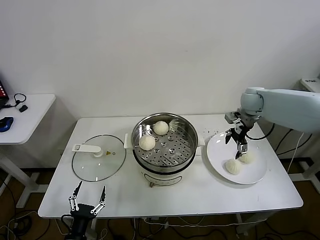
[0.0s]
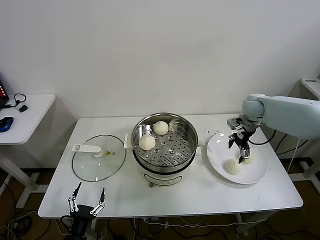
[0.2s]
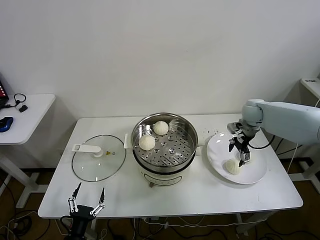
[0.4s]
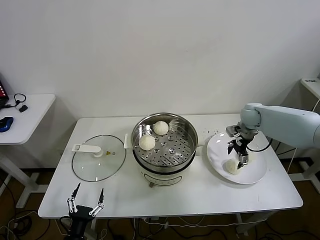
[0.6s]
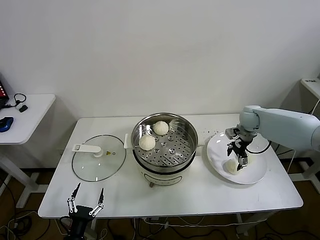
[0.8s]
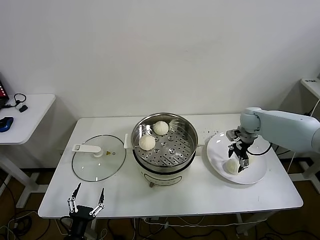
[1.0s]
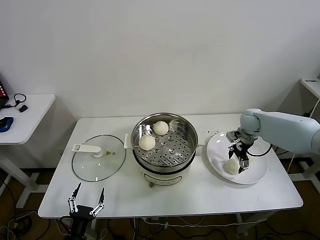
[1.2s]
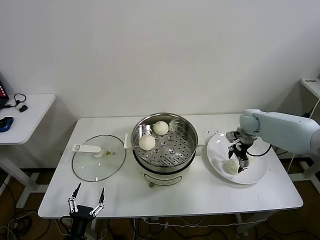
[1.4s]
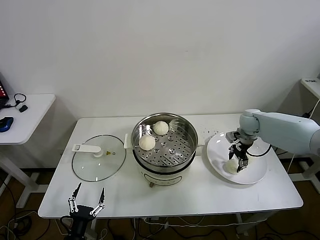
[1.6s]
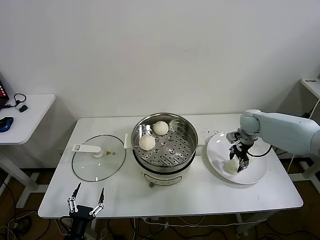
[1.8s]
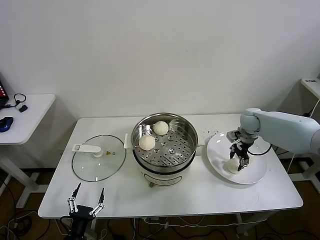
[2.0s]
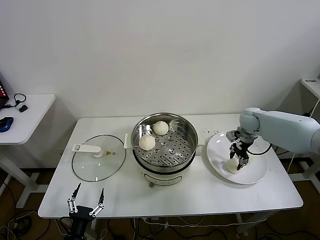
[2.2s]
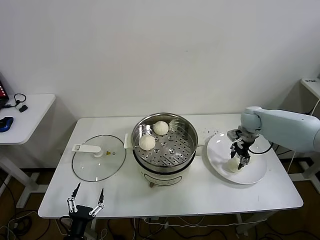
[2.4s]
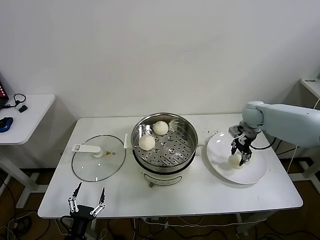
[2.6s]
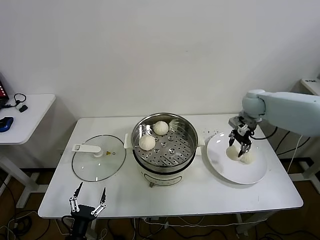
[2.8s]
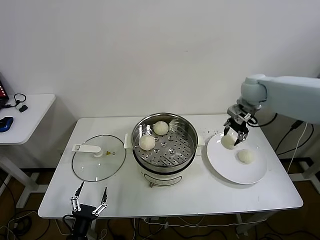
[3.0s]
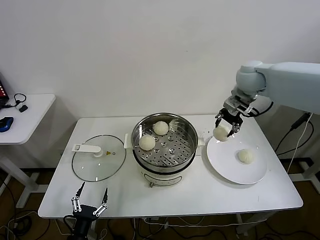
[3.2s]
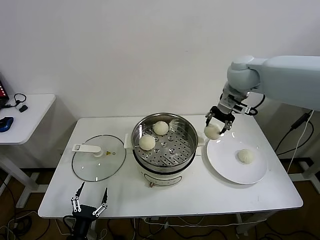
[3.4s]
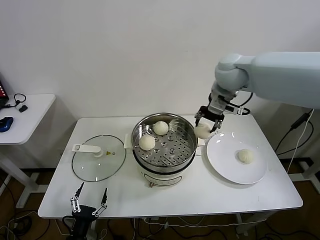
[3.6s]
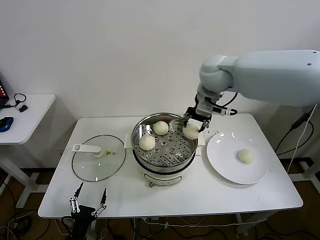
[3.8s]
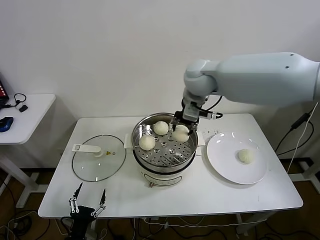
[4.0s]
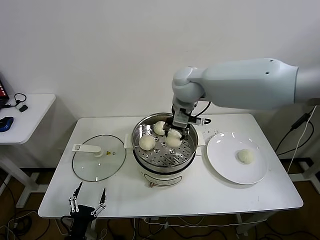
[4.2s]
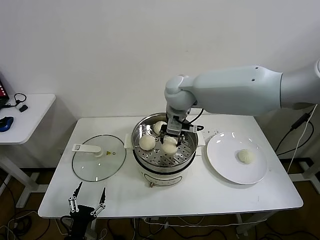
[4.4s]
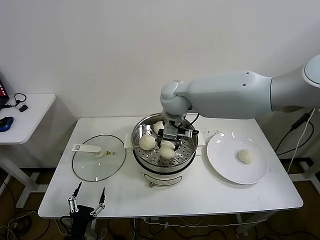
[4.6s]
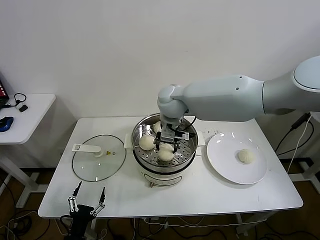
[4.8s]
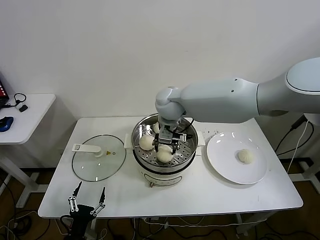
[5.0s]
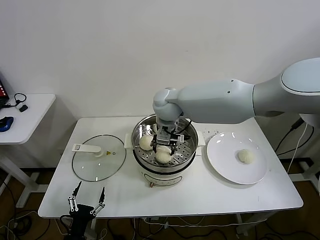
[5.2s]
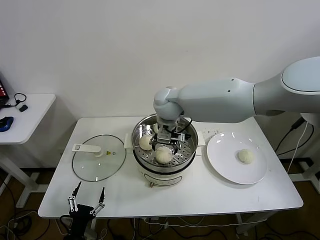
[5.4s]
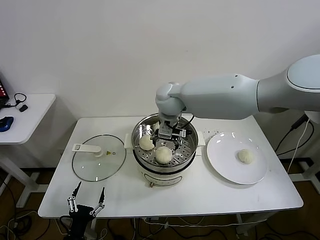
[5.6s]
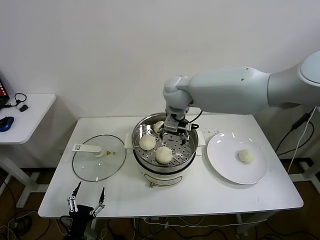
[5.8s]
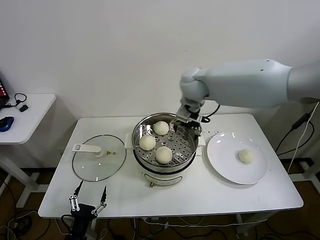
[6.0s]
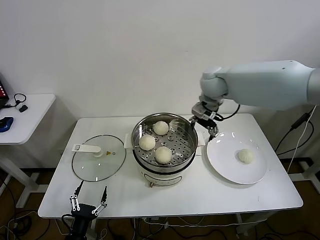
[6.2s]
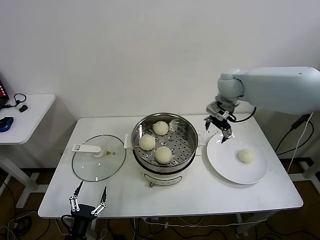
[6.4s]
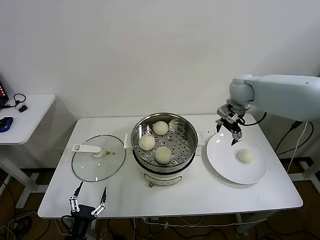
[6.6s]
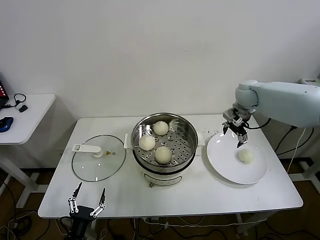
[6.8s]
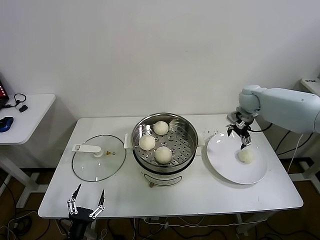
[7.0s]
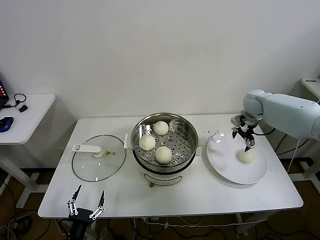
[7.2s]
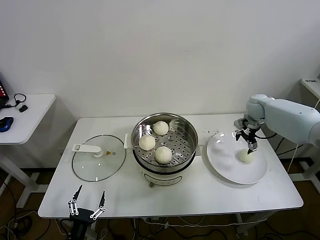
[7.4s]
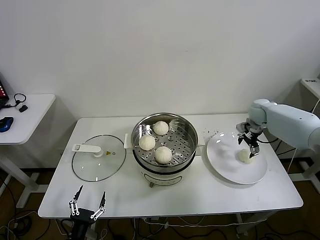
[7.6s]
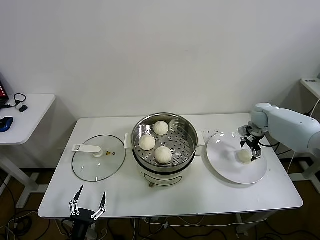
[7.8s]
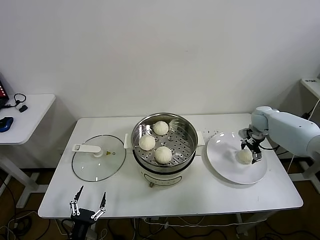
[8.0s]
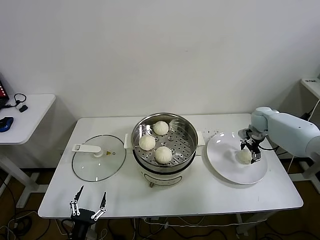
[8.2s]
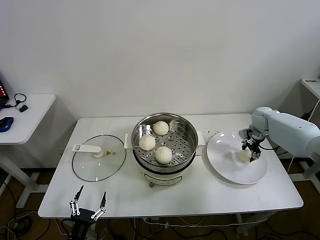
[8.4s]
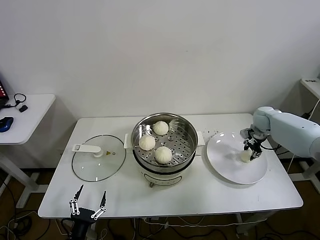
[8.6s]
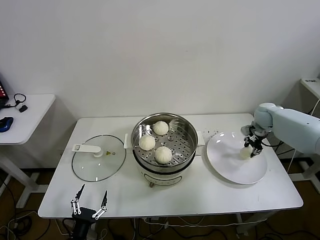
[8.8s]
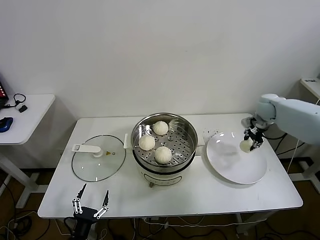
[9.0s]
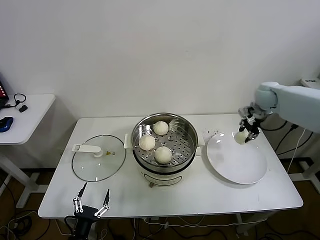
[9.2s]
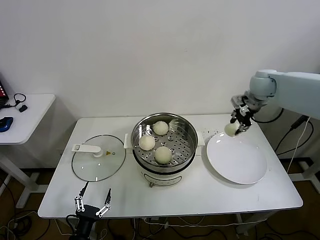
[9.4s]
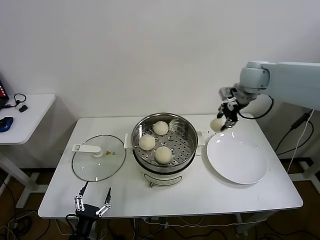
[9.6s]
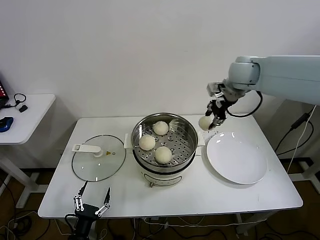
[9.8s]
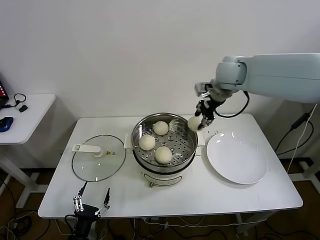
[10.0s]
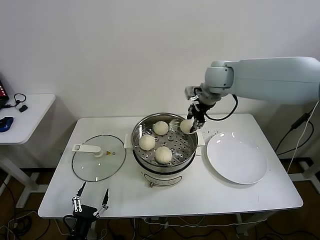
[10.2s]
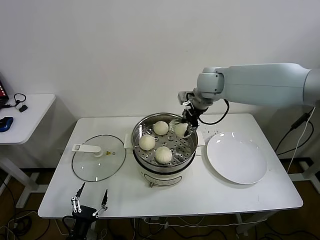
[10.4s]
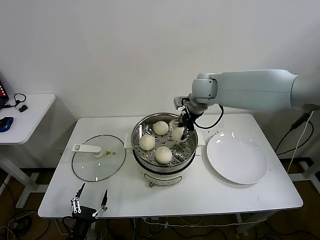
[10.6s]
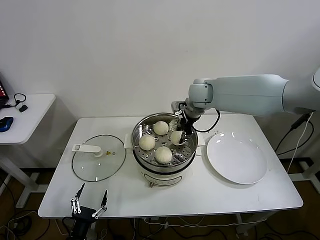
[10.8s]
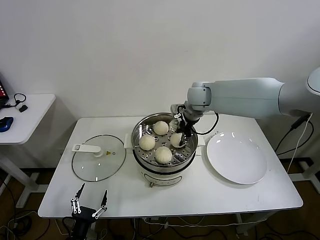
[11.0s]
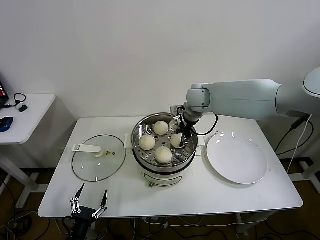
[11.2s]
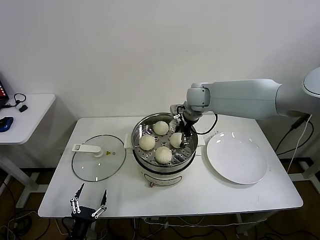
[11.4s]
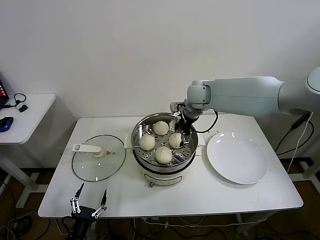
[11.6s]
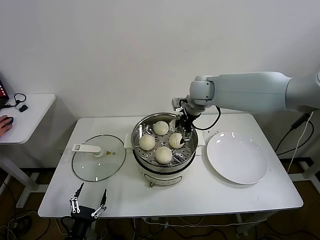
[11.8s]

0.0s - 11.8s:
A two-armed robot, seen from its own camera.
Task of the whole recording: take steamed baozi put them in steamer.
Step, 0.0s - 1.8s: Grasp the baozi in the plate with right gripper.
Step, 2.0s - 5.4s: Place the baozi on the steamer with right gripper.
Step, 5.6s - 8.6s: Grasp the baozi in the plate with right gripper.
Step, 8.8s - 11.6s: Place the baozi on the steamer with right gripper.
0.0s - 1.4s: The right gripper goes roughly 10 cm downward.
1.4s - 3.0s: The right gripper travels upward by roughly 15 cm, and closes its fingers.
3.0s - 4.4s: The right gripper is displaced to the left by roughly 25 cm.
4.4s - 6.0s: The right gripper ends up about 5 cm from where it was, and opens up.
6.0s - 7.4s: The right gripper goes approximately 30 cm to the right and downward.
7.4s - 8.8s: The right gripper moves about 5 cm, and closes.
8.8s - 10.4s: The right gripper goes some 30 cm to the left and upward.
10.4s - 11.8s: The right gripper opens.

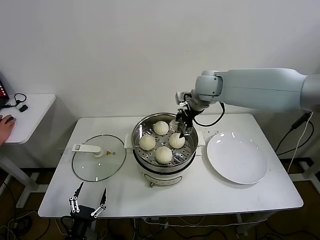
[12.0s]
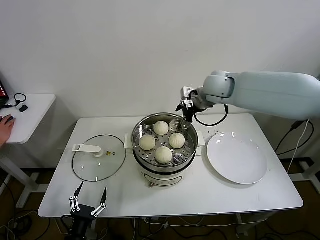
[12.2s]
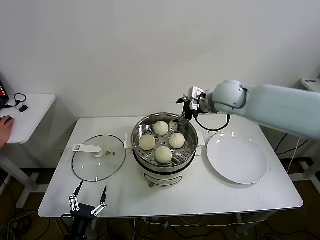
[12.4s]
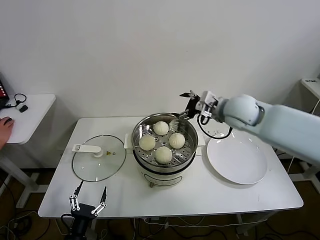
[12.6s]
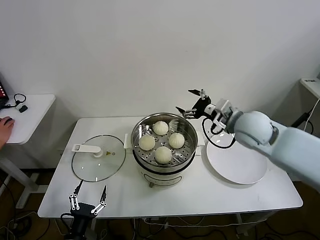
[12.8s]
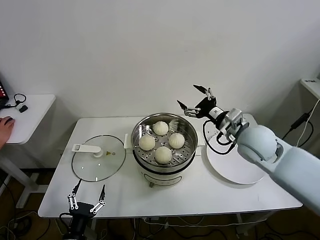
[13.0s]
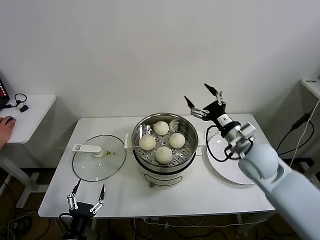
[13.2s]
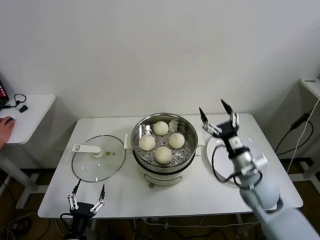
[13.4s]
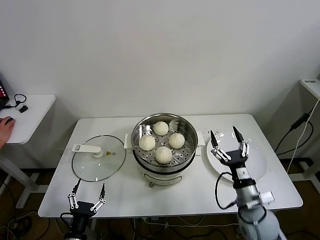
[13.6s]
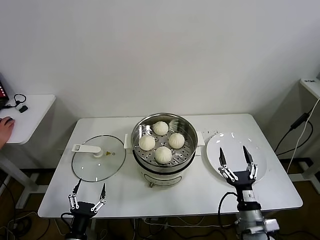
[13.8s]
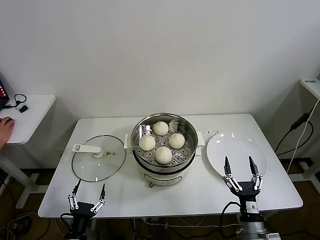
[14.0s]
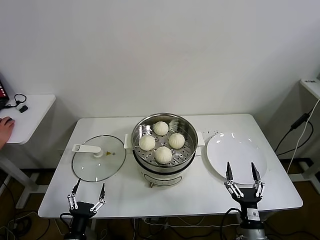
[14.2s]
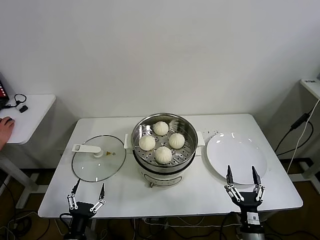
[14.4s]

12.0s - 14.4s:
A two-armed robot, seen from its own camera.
Task of the whole recording: take steamed baozi put them in steamer.
12.0s - 13.2s: The right gripper shifts approximately 25 cm backward, to the right and downward.
13.2s - 14.4s: The right gripper is displaced backward and downward by roughly 35 cm.
